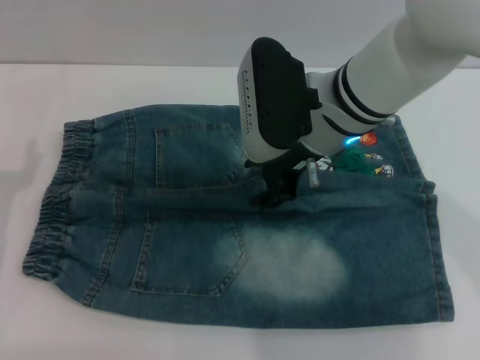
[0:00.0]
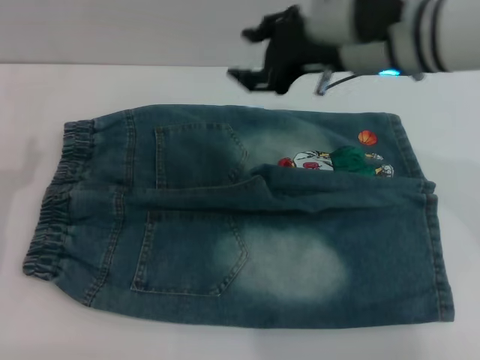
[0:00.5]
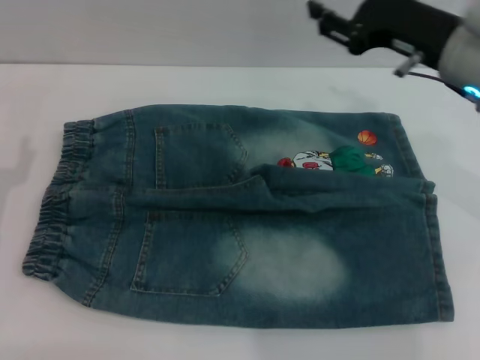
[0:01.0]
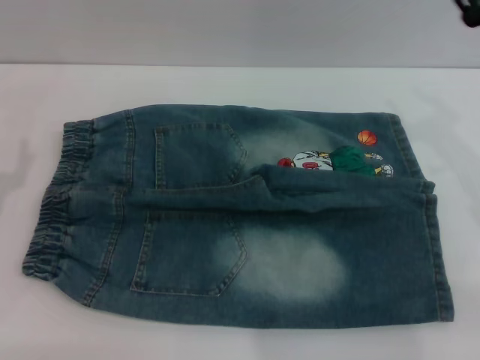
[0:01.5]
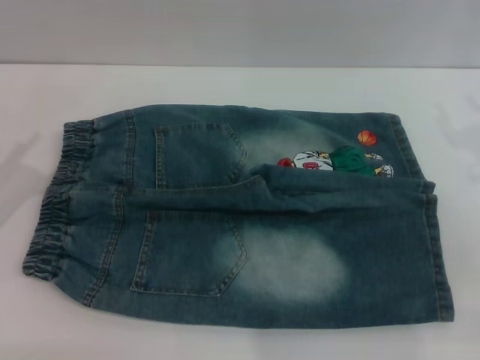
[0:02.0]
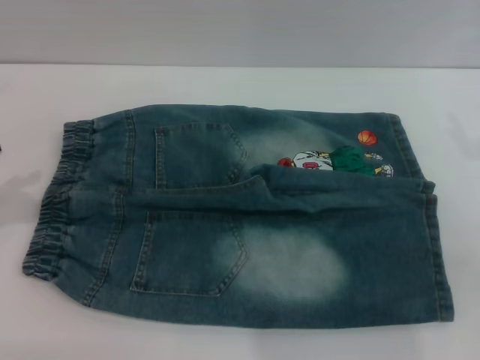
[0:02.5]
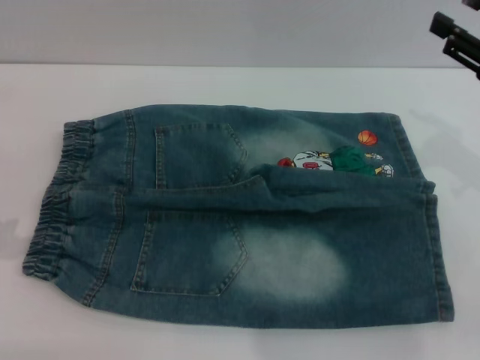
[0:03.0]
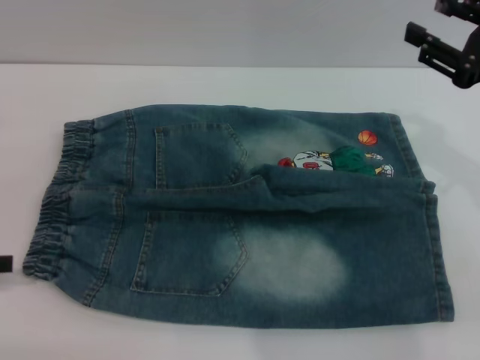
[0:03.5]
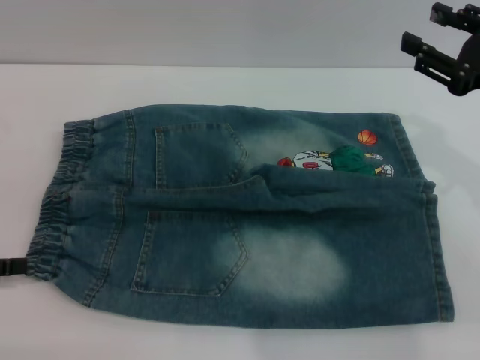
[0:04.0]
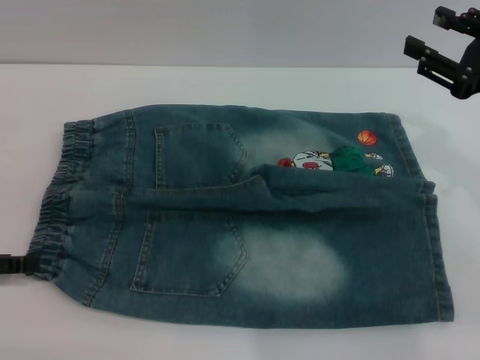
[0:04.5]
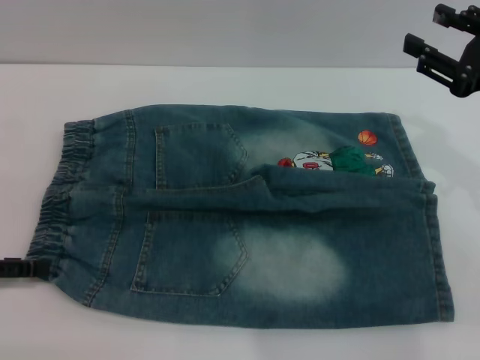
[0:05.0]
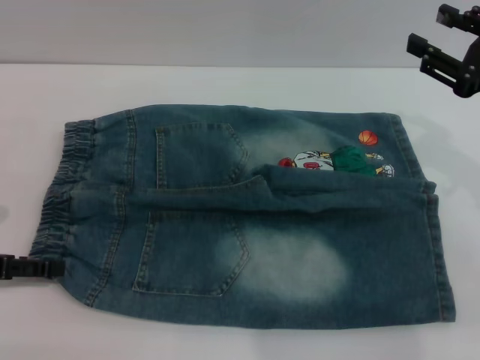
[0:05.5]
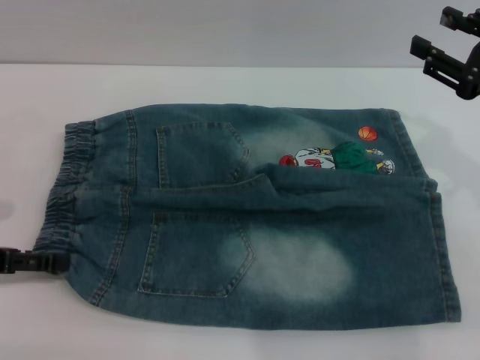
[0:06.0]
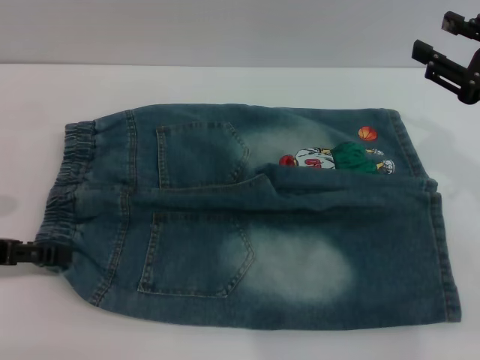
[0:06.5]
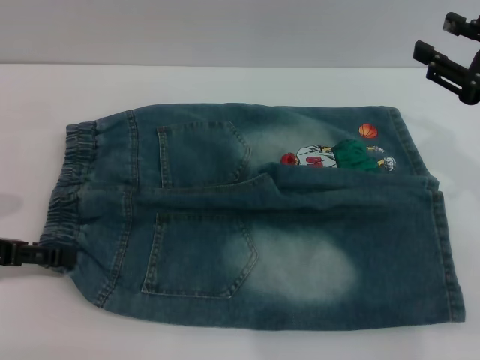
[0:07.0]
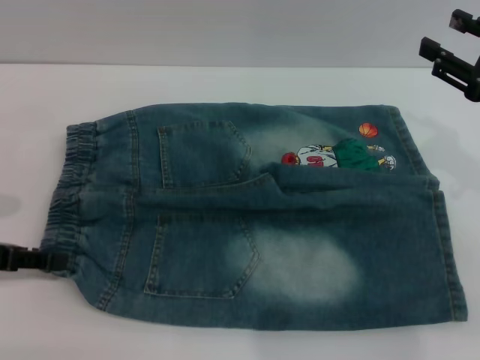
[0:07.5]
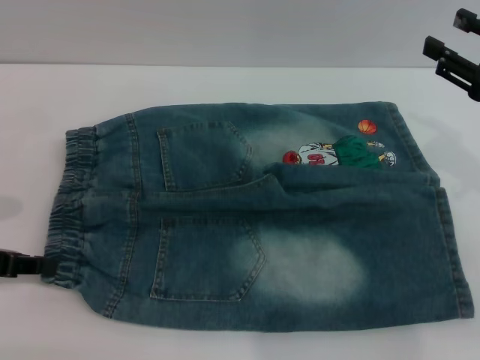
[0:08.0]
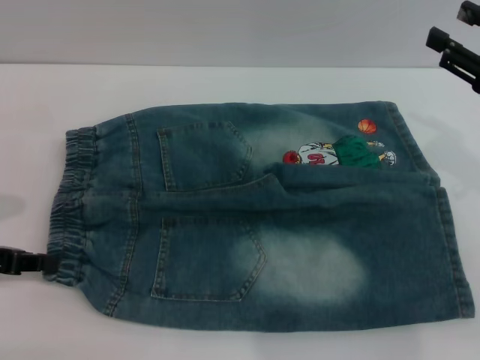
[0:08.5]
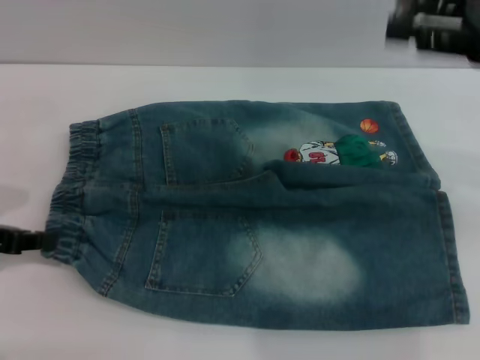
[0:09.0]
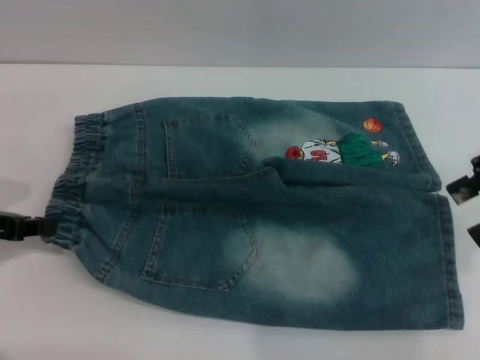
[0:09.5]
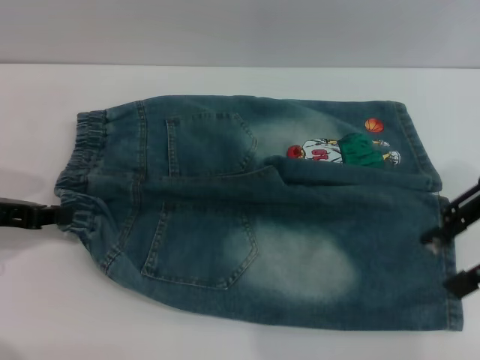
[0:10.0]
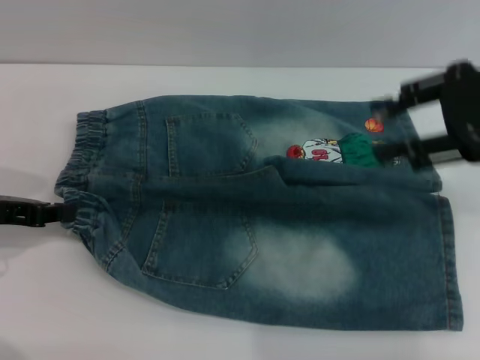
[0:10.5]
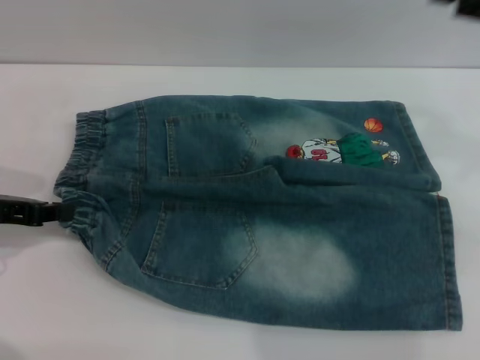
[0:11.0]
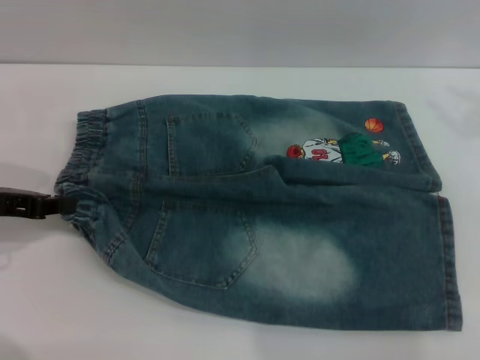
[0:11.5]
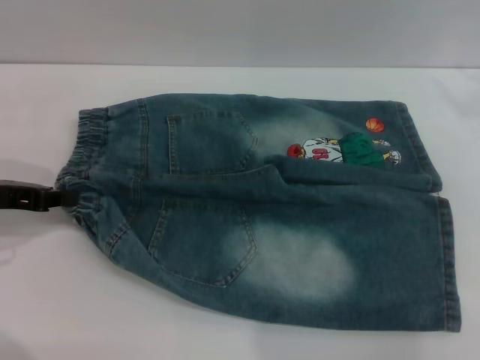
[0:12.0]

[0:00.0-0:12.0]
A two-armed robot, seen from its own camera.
0:00.0 to 0:02.0: The right gripper shifts roughly 25 cm to the right. Meanwhile the left gripper shifts by about 5 cm.
0:04.0 to 0:06.0: The grippers move only a little.
0:06.0 to 0:08.0: The left gripper closes up.
0:08.0 to 0:10.0: The right gripper travels upward by roughly 10 cm.
0:10.0 to 0:12.0: The right gripper is displaced to the right and forward by roughly 10 cm.

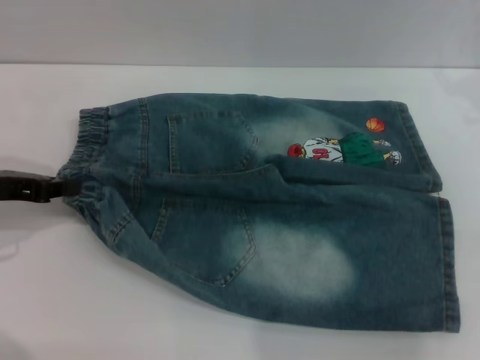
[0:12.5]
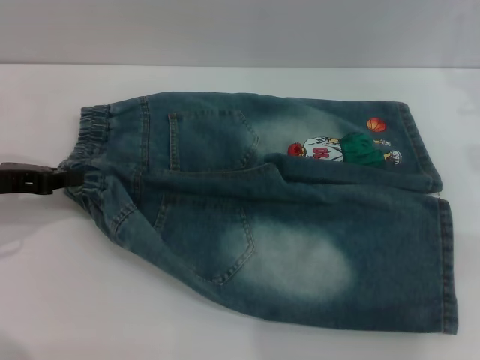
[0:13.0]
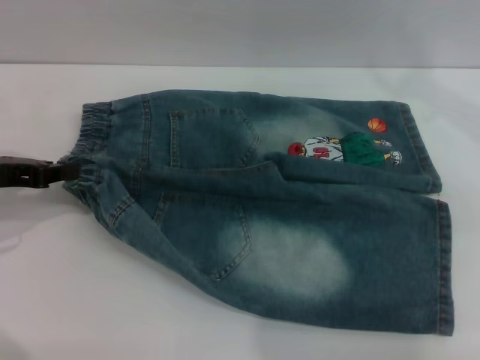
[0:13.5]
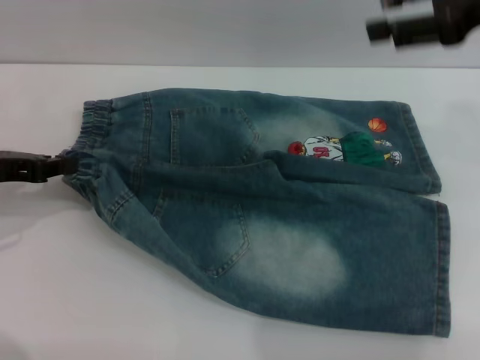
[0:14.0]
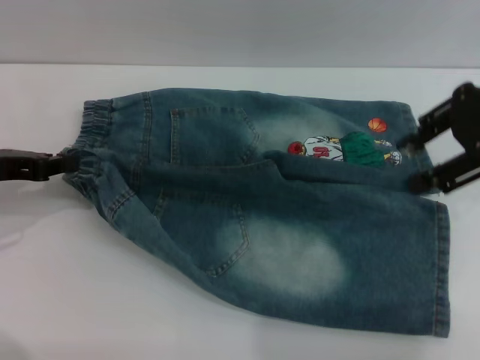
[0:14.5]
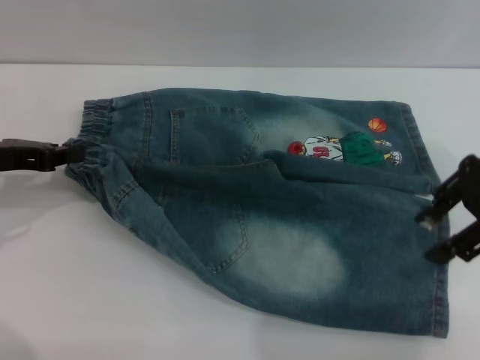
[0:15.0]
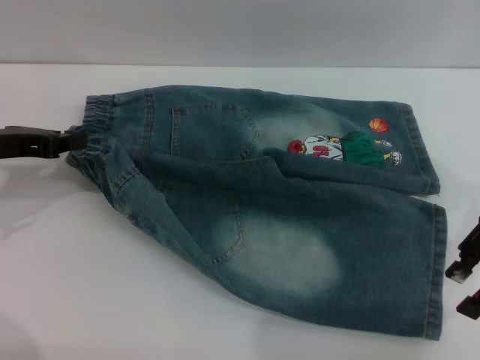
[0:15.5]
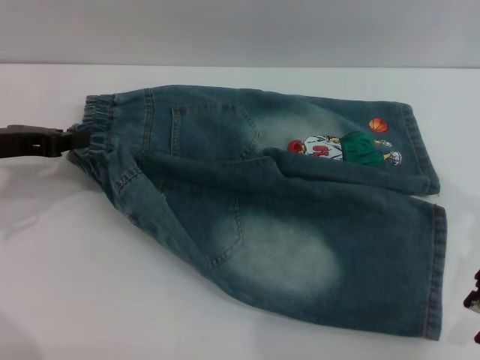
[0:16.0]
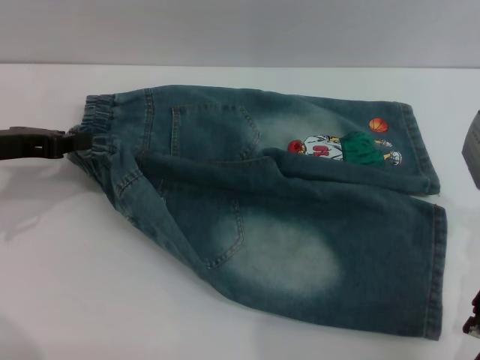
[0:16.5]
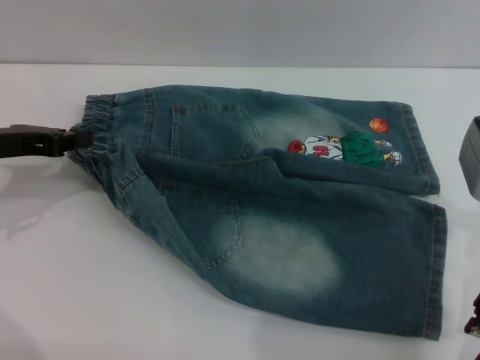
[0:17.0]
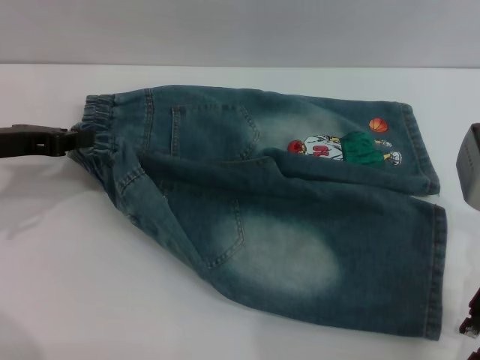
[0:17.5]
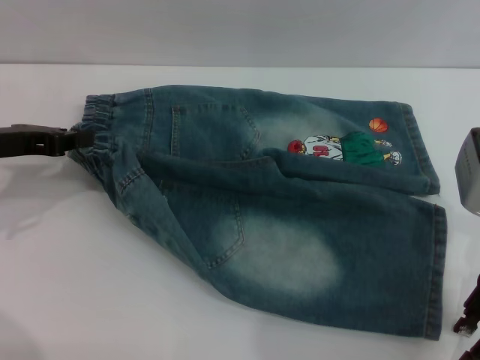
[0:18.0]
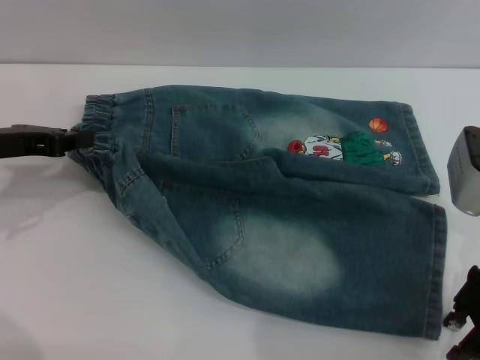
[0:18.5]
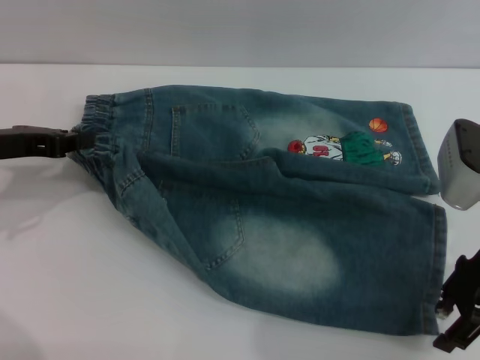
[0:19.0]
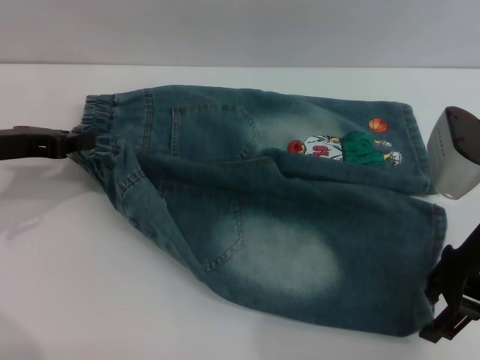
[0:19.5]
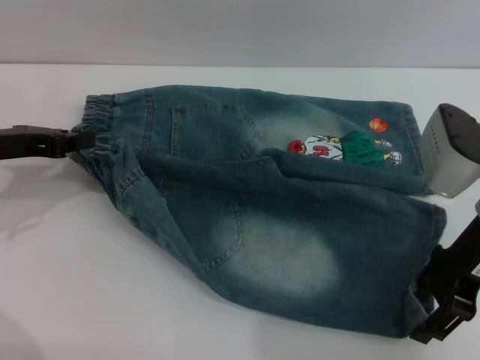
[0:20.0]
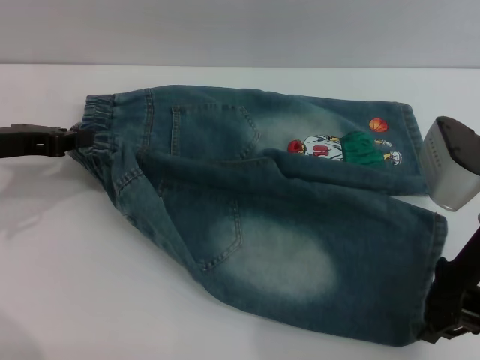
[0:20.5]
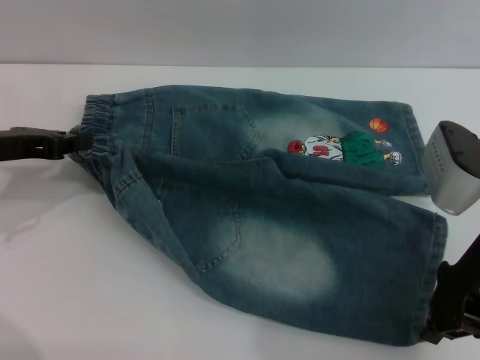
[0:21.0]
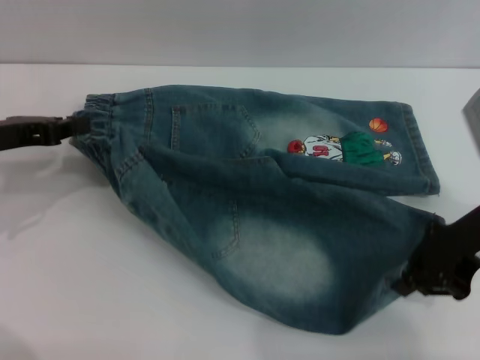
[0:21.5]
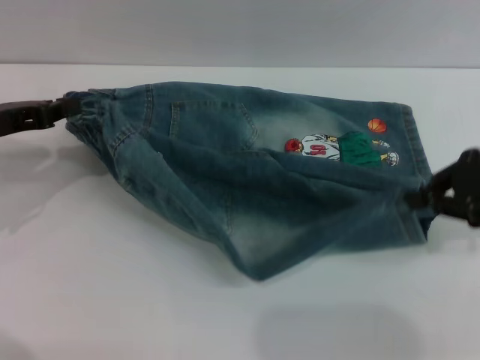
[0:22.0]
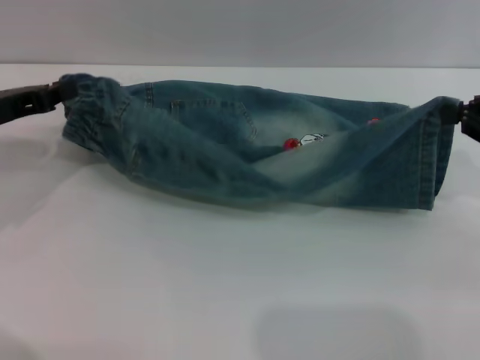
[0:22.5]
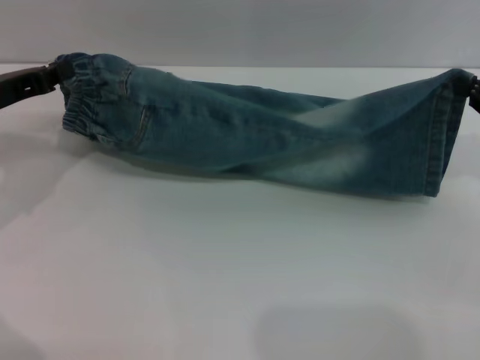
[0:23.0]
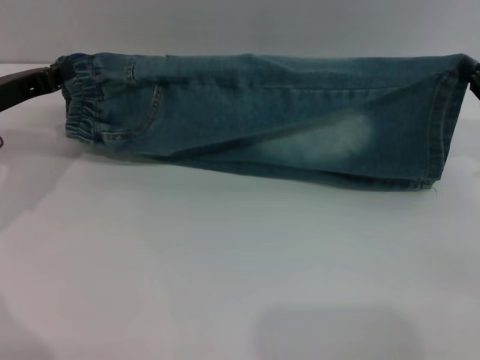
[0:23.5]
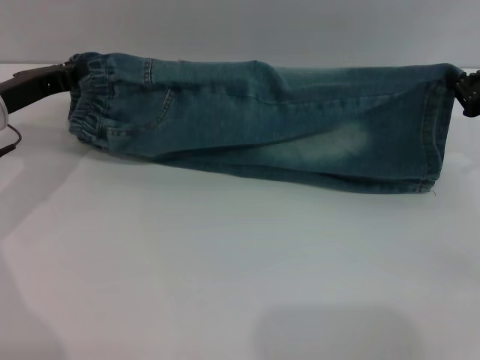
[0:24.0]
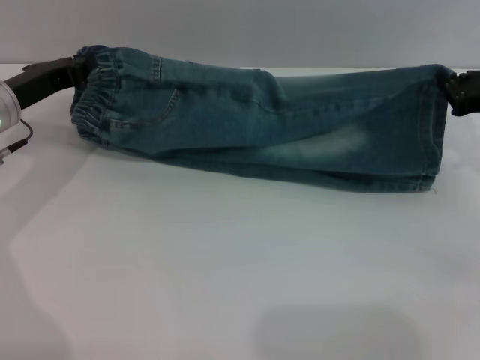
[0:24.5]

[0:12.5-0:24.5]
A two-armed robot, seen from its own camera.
0:12.5 to 0:14.5: The right gripper travels upward and to the left by about 10 cm.
0:14.5 to 0:16.5: The right gripper moves downward, some 10 cm.
0:16.5 to 0:18.5: The grippers make only small movements.
0:18.5 to 0:20.5: The right gripper closes its fingers.
0:20.5 to 0:22.5: The right gripper heads to the right, covering some 10 cm, and closes up.
0:22.5 to 0:24.5: The right gripper shifts roughly 10 cm forward and downward, while the left gripper moves approximately 5 cm.

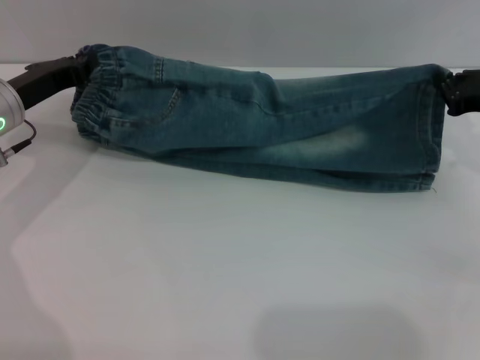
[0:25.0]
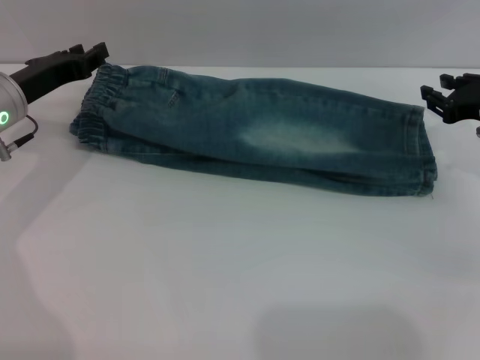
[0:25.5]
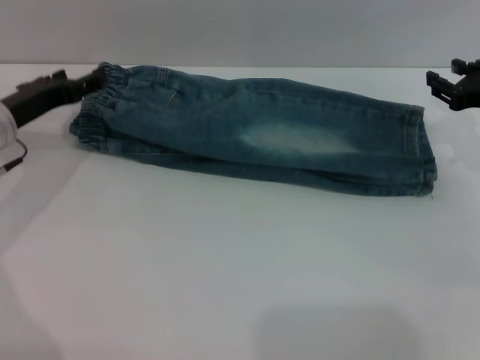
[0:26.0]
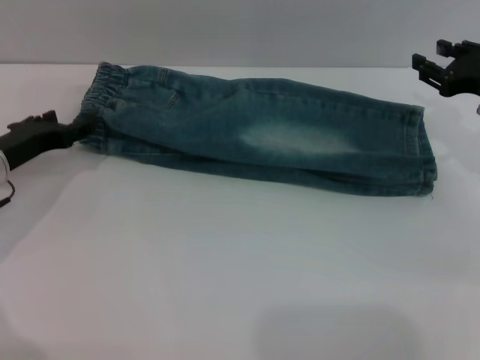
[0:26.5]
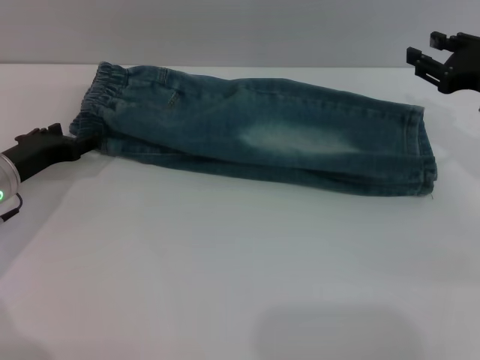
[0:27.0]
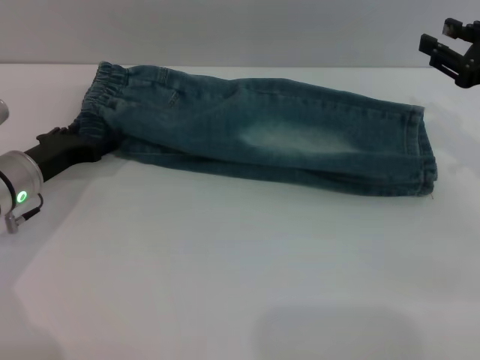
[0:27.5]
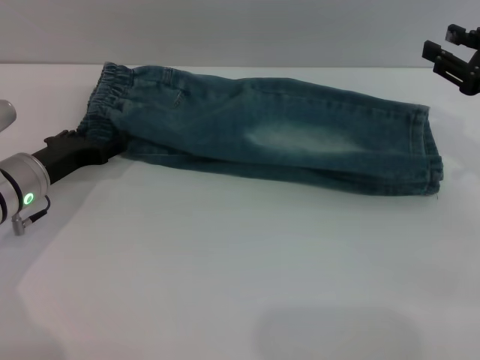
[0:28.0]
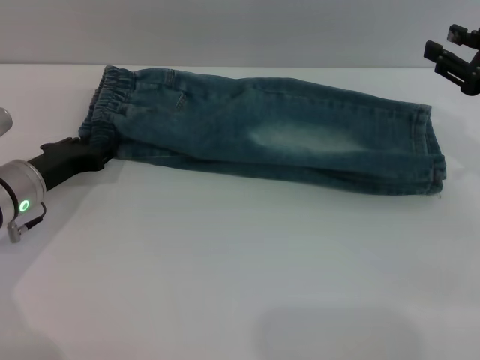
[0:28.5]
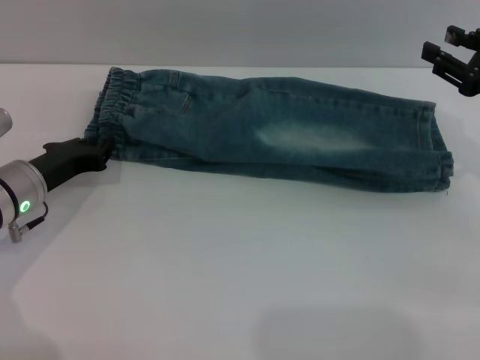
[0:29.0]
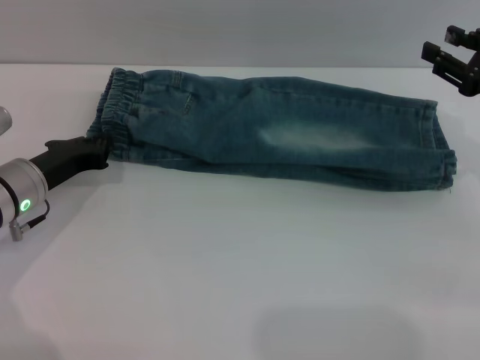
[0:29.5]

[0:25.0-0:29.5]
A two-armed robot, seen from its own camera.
0:25.0 to 0:27.0: The right gripper opens; the left gripper moves downward, roughly 5 cm, and opens its fingers.
0:27.0 to 0:29.5: The left gripper closes up.
